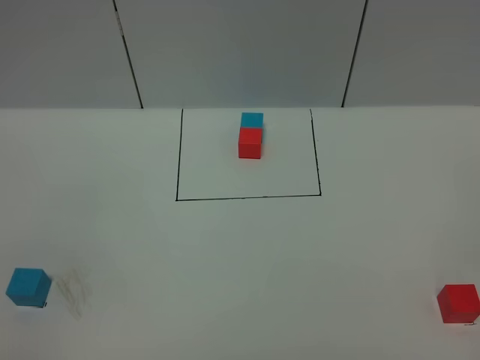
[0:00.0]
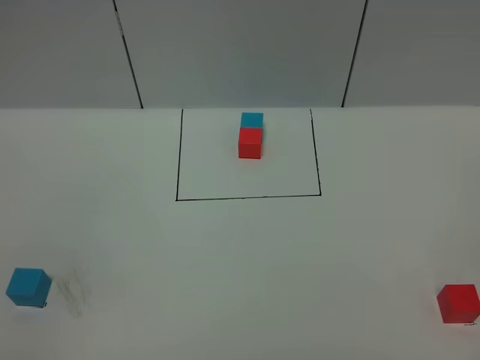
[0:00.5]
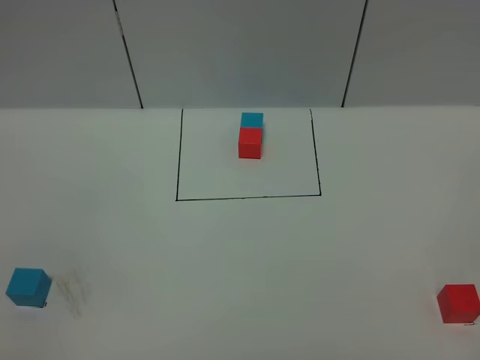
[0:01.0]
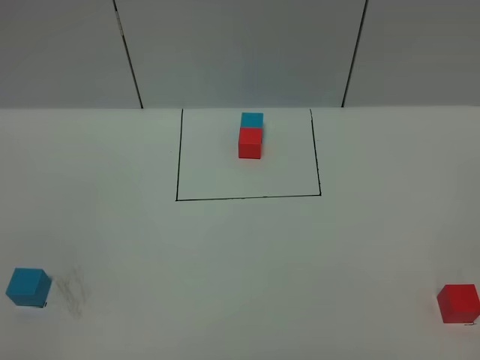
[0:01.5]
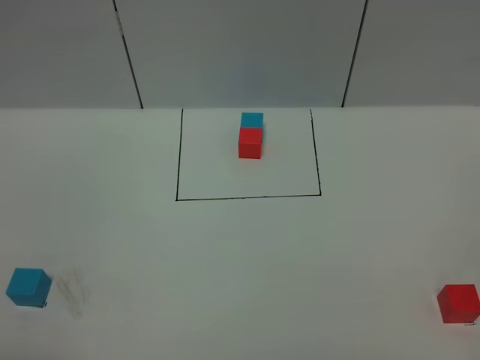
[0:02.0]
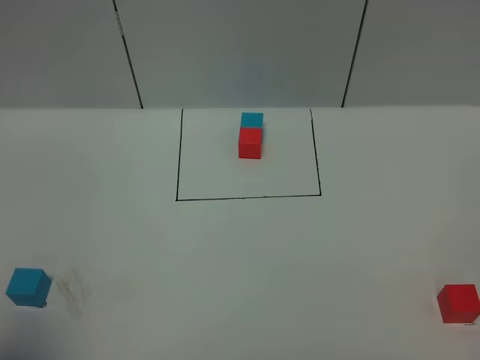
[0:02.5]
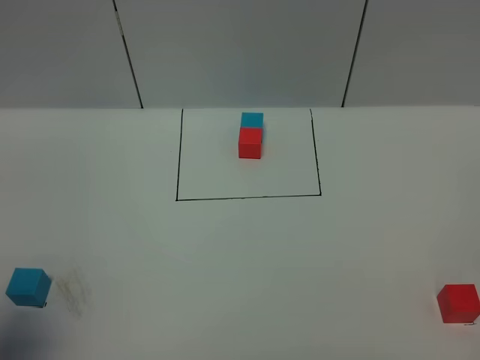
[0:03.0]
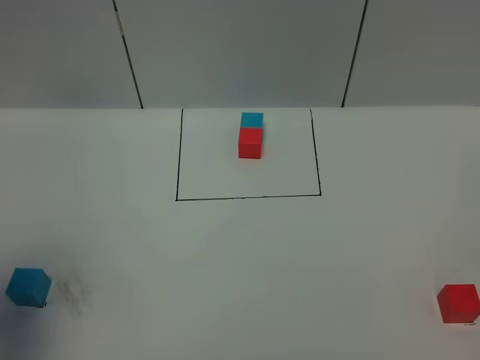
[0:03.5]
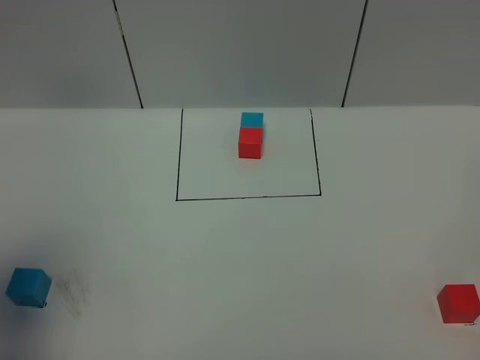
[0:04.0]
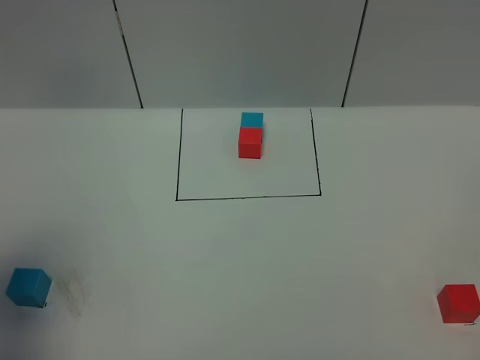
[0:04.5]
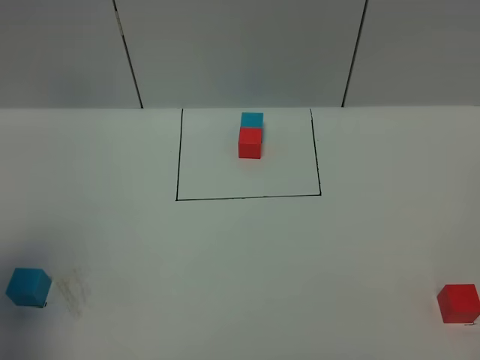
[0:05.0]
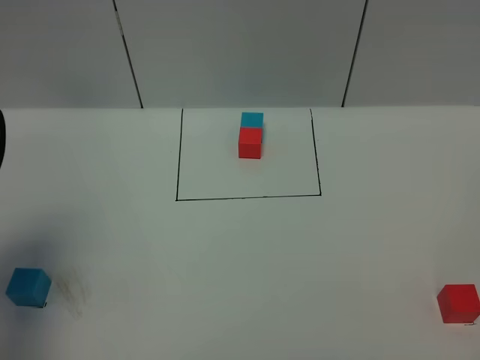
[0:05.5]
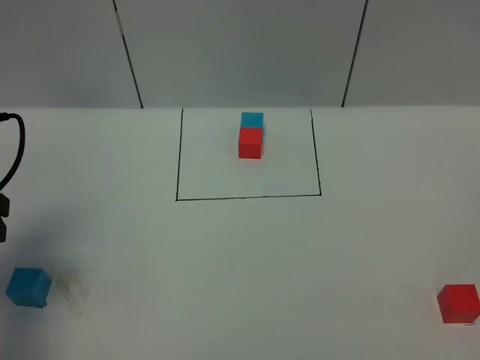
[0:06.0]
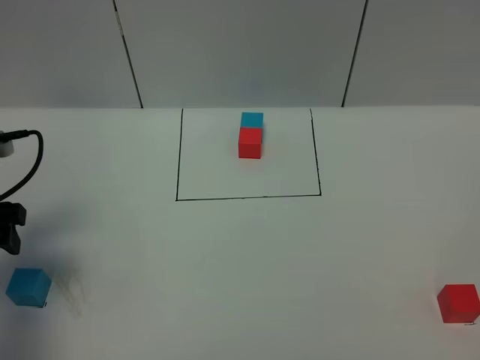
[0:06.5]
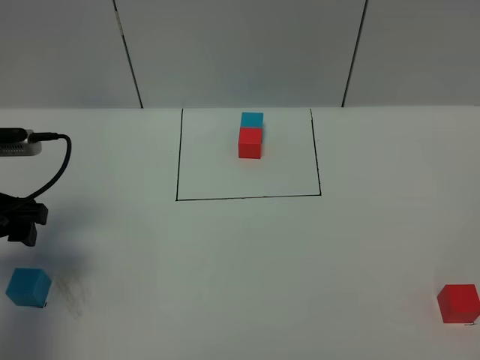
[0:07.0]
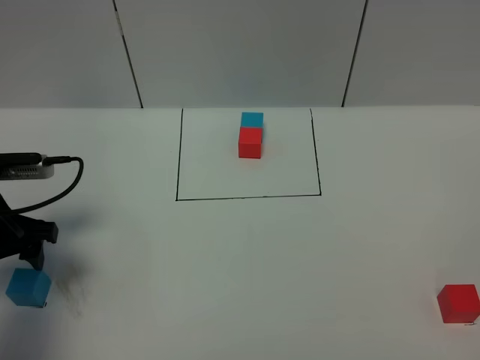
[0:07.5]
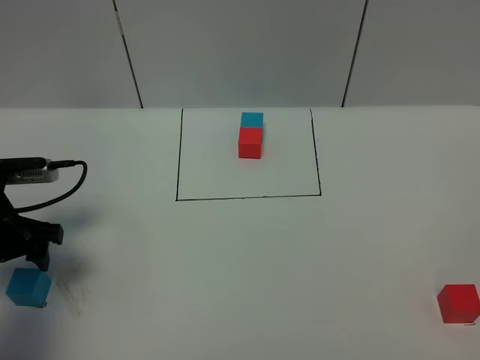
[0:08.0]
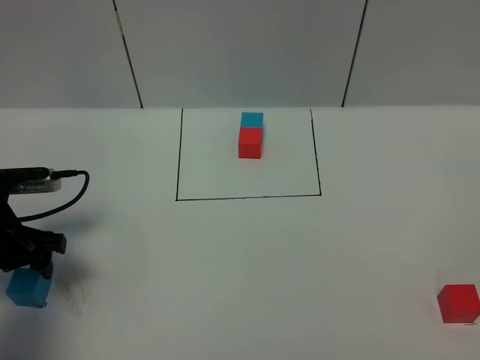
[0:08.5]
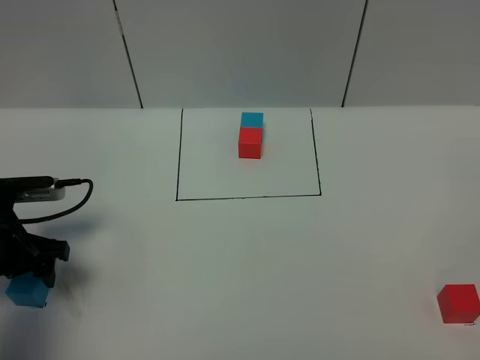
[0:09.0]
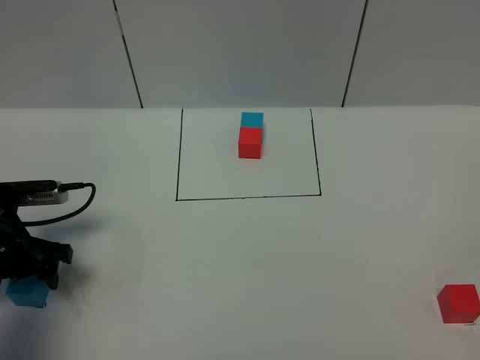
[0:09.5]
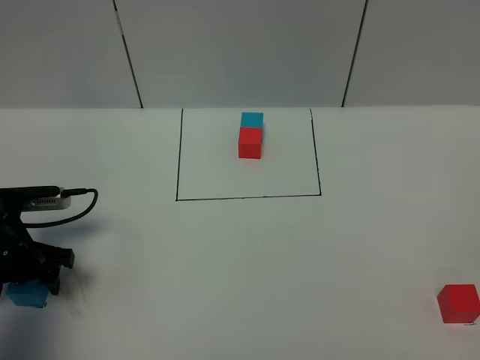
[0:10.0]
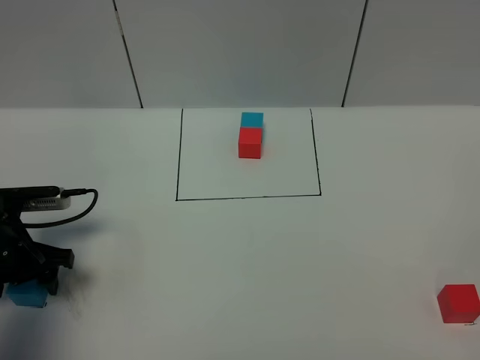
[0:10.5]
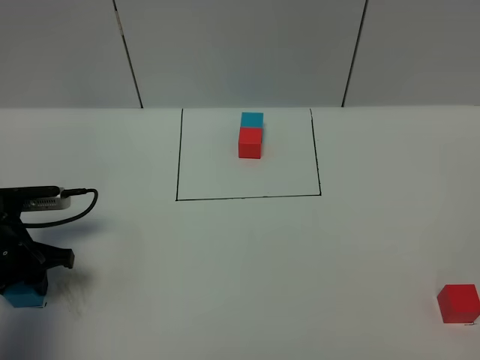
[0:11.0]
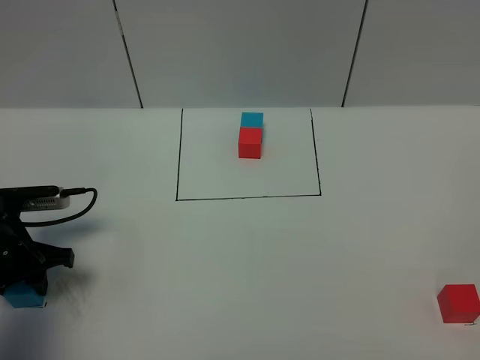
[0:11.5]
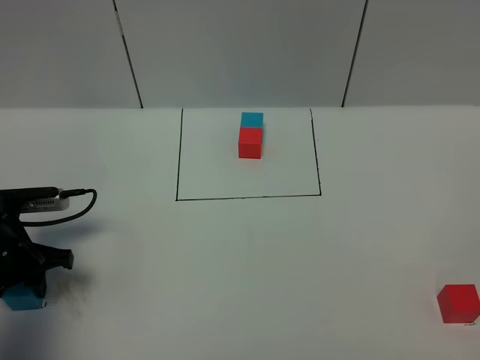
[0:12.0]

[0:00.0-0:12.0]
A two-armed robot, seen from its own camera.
Task of the whole recording: According to the building block template in front, assemble the scattered blocks together.
0:02.0 to 0:04.0: The left gripper heads forward, covering roughly 15 cm.
0:04.0 to 0:06.0: The left gripper moves downward and forward, some 10 cm.
0:06.0 to 0:08.0: The left gripper goes roughly 10 cm downward.
0:08.0 to 0:10.0: The grippers make only small movements.
0:10.0 to 0:12.0: The left gripper closes.

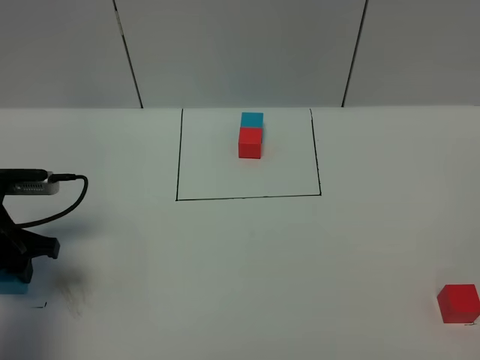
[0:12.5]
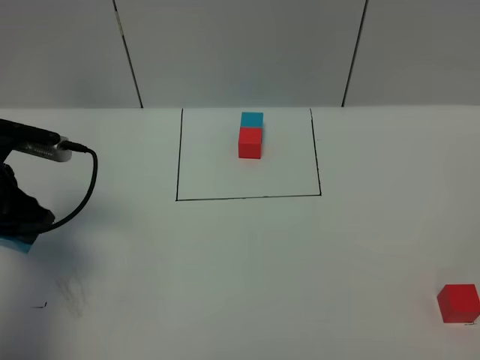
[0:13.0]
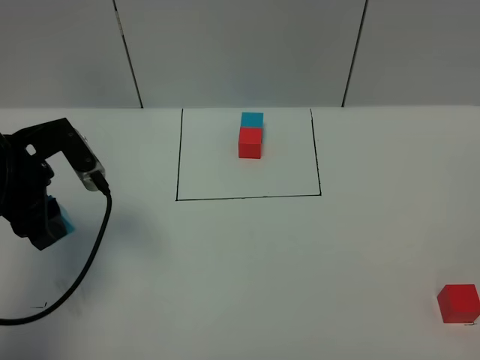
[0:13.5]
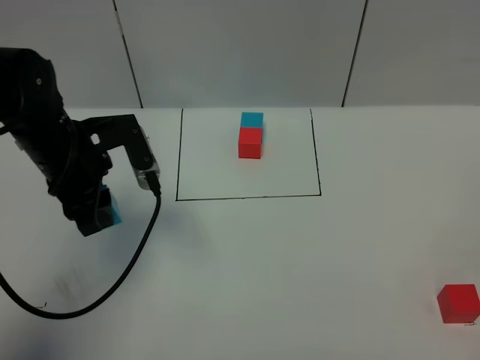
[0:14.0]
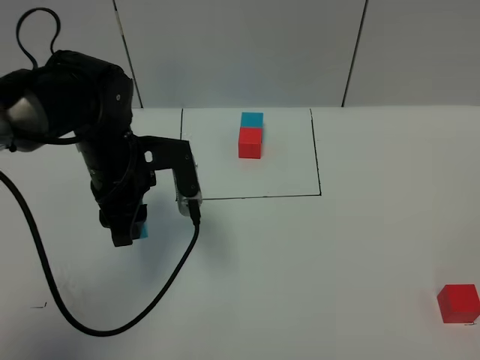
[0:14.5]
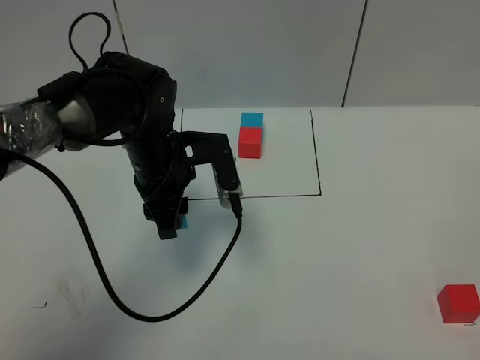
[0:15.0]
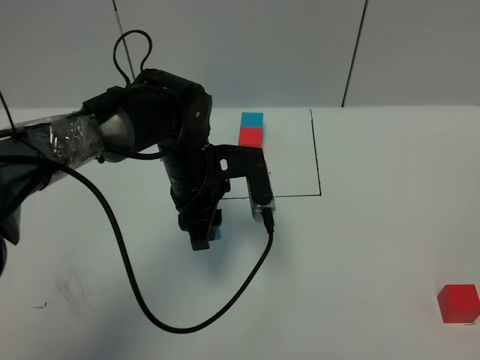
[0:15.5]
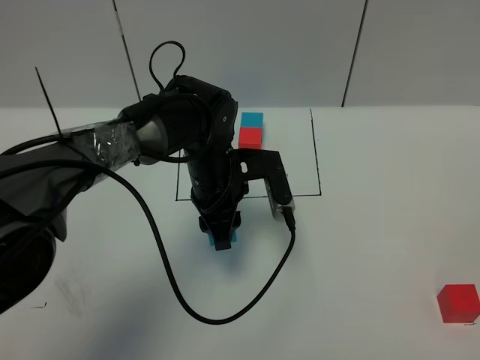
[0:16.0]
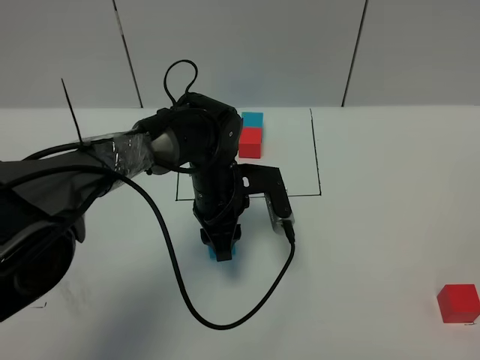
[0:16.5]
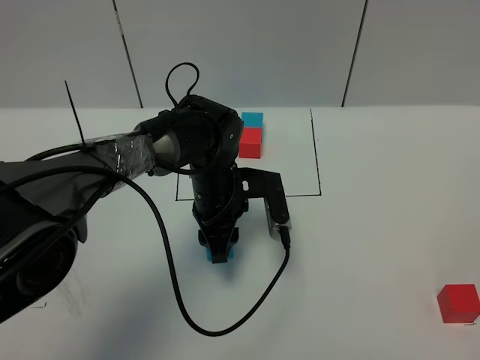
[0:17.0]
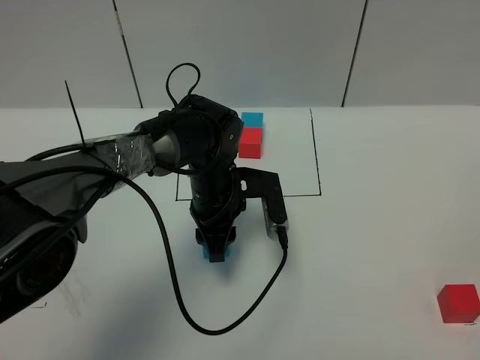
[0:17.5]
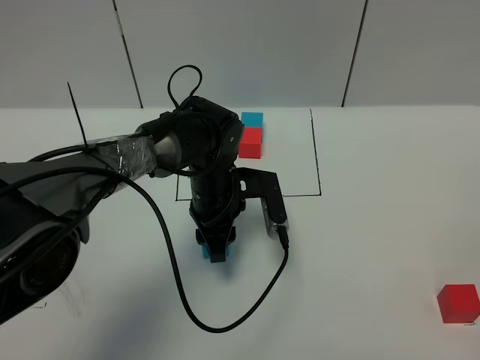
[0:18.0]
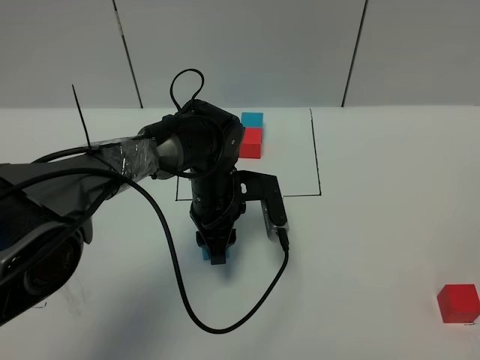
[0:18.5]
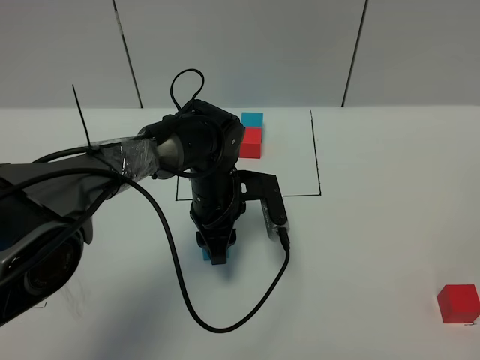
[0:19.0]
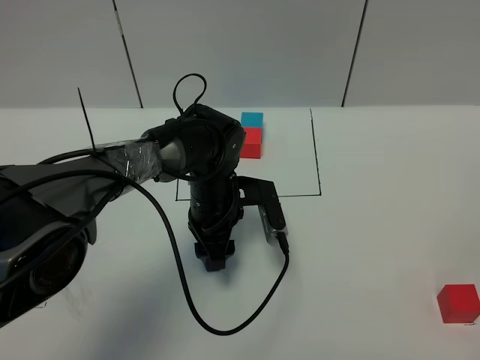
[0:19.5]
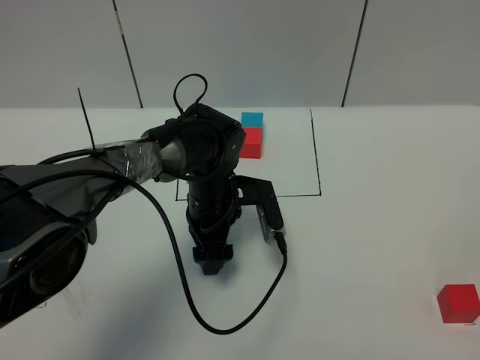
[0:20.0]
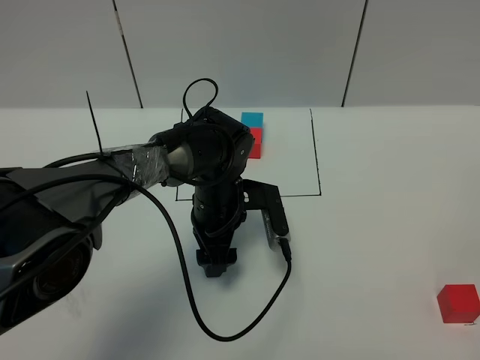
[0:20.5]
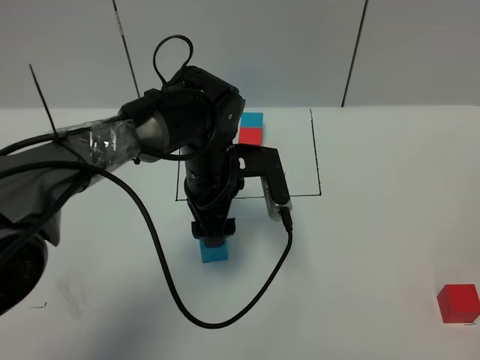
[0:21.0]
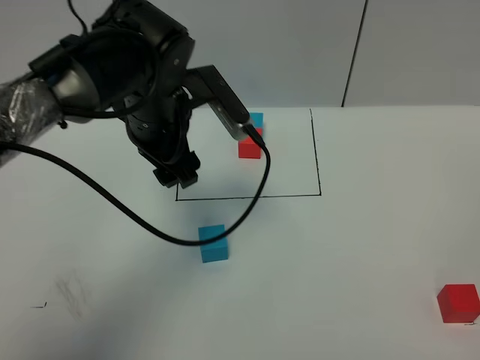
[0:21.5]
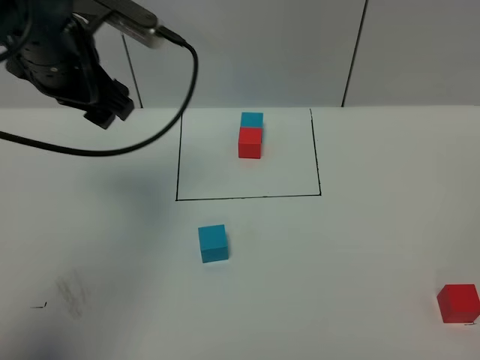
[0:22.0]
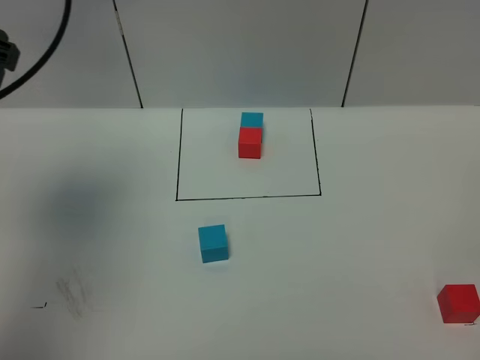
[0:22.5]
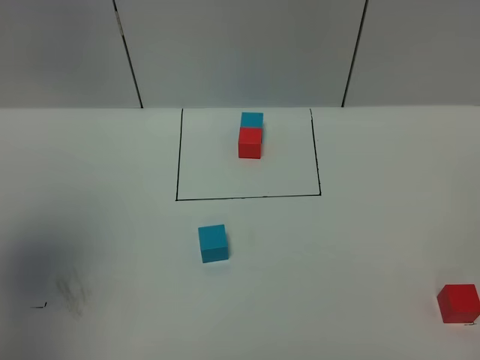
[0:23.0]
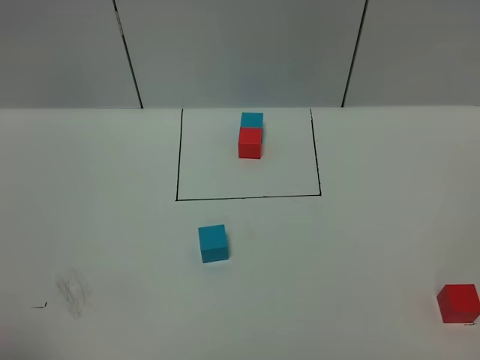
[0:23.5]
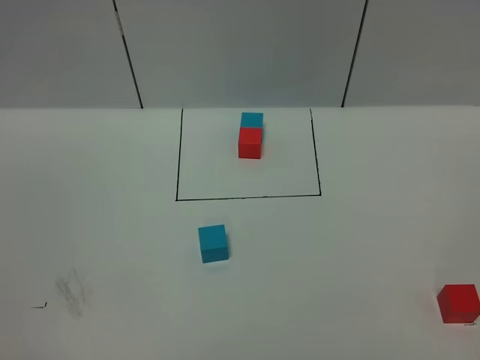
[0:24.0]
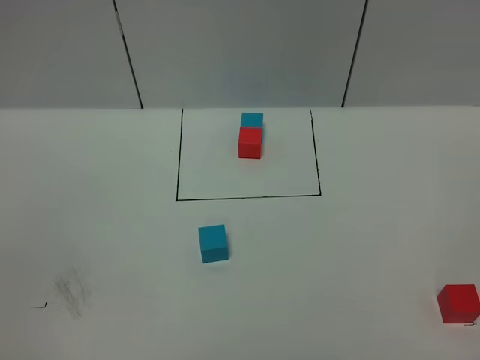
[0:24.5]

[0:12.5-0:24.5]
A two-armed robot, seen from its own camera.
Task of the whole recording: According to the building block template in front, assemble the scattered blocks together.
Step, 0:12.5 to 0:21.0: Put the blue cube in the center of the table.
0:12.5 to 0:14.5: The left gripper is displaced to the right by some 15 cm.
0:14.5 to 0:16.5: The left gripper heads to the right and downward, covering approximately 15 cm.
0:16.5 to 0:18.5: Neither gripper changes place.
0:18.5 to 0:20.5: The left gripper opens its fingers.
0:20.5 to 0:22.5: The left gripper goes some 40 cm upward and to the left.
0:22.5 to 0:24.5: The left gripper is displaced backward by some 35 cm.

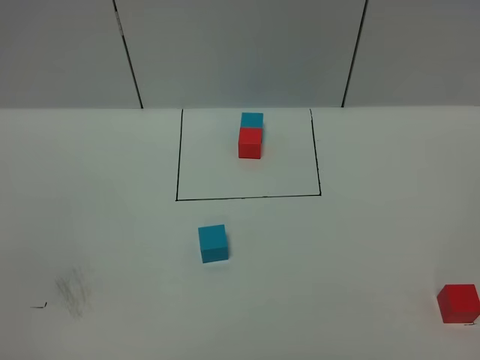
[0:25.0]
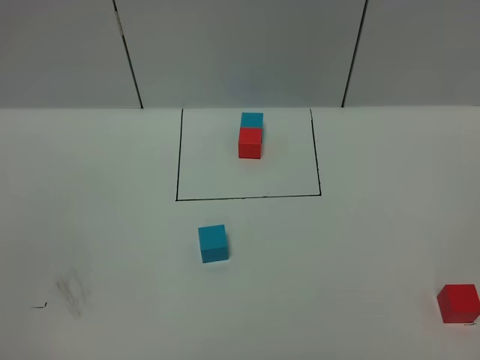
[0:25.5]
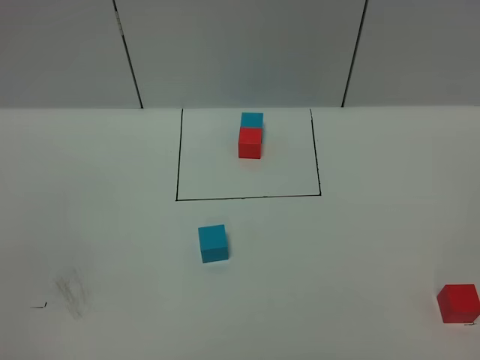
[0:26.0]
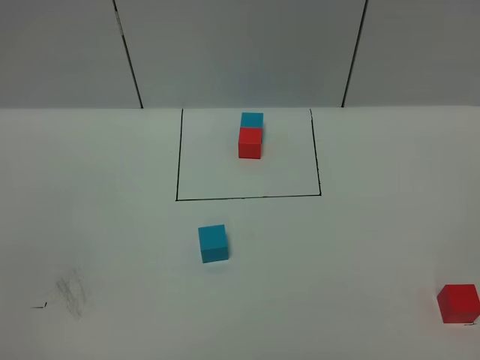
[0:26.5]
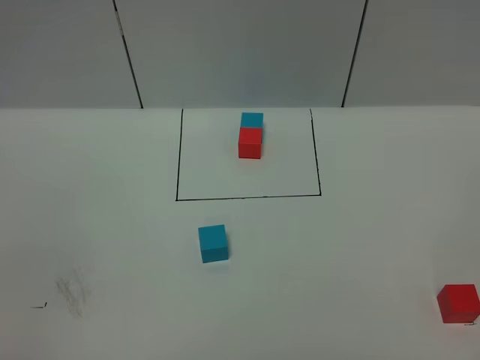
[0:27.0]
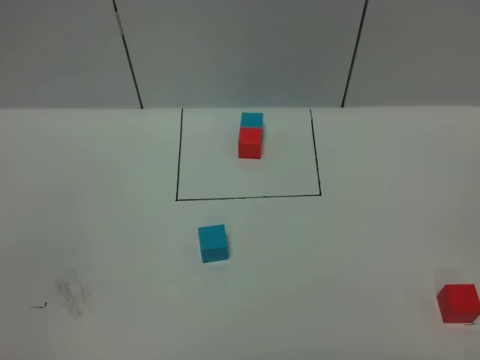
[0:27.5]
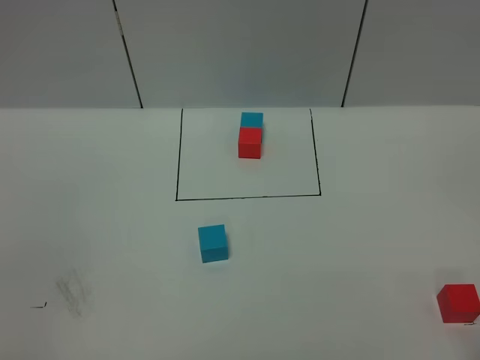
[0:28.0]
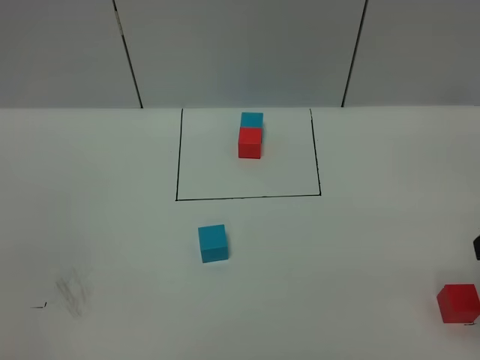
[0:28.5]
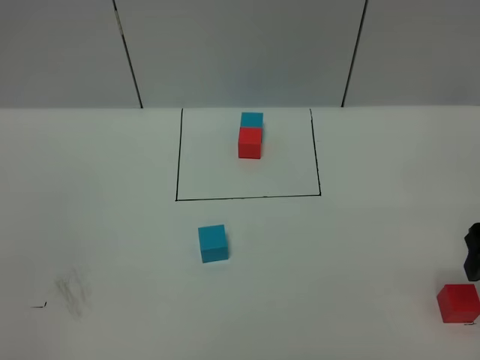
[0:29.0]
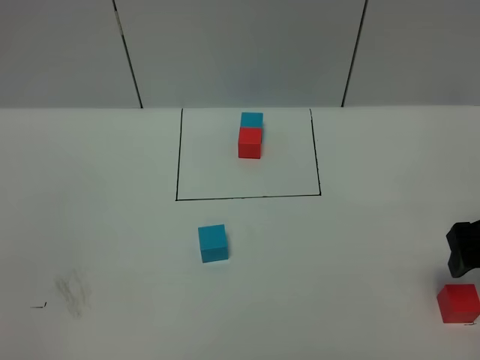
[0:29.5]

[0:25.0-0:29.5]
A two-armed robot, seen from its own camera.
Task of the whole recording: According to the building block template in front, assemble the scattered blocks together.
0:27.0 to 0:29.5: The right gripper heads forward, covering about 30 cm.
